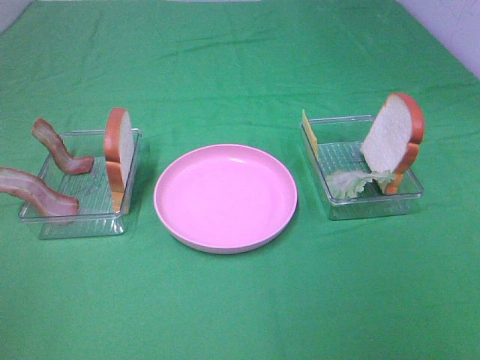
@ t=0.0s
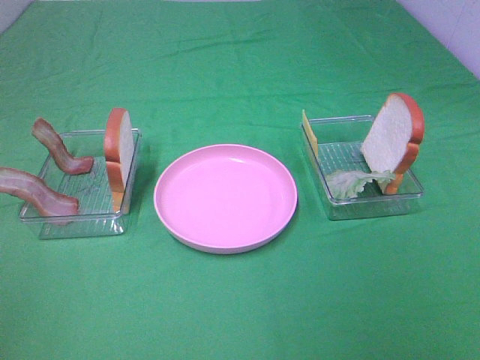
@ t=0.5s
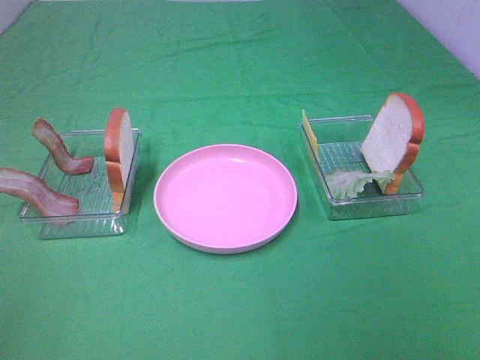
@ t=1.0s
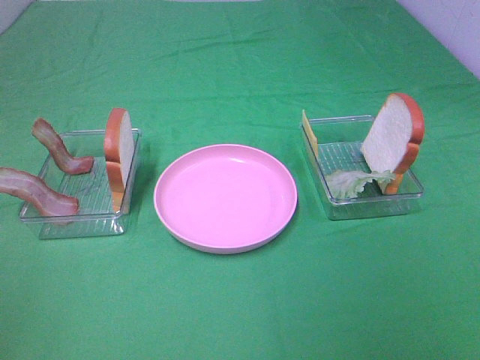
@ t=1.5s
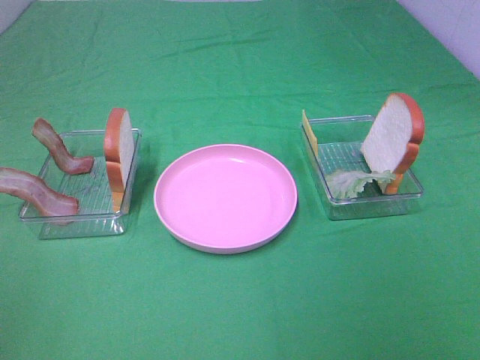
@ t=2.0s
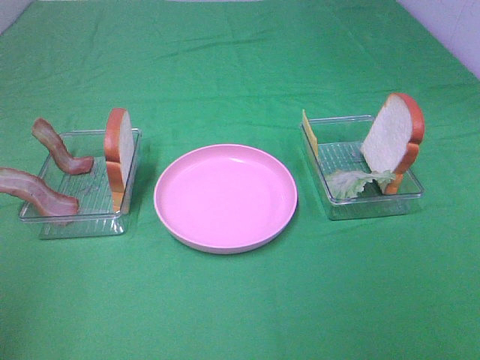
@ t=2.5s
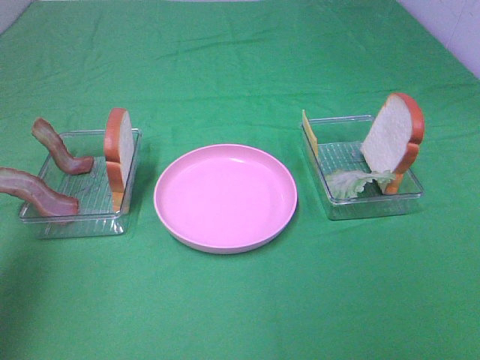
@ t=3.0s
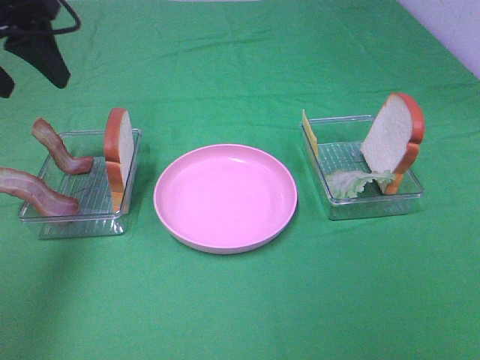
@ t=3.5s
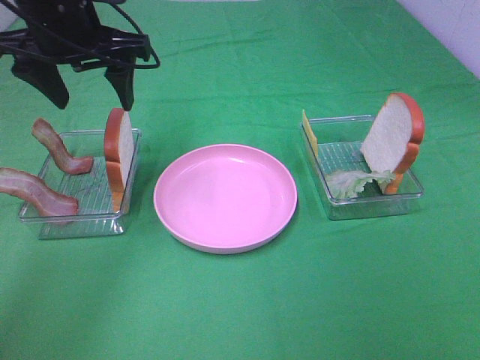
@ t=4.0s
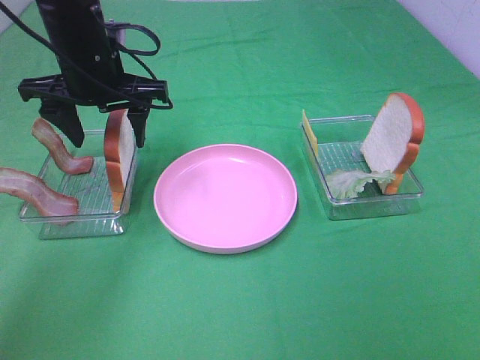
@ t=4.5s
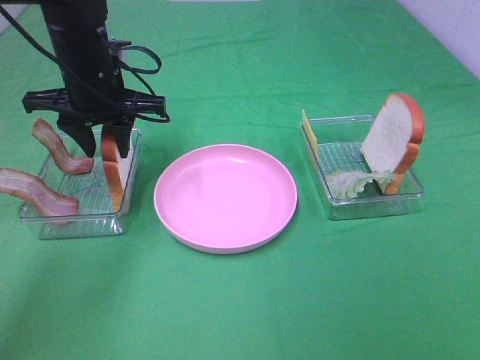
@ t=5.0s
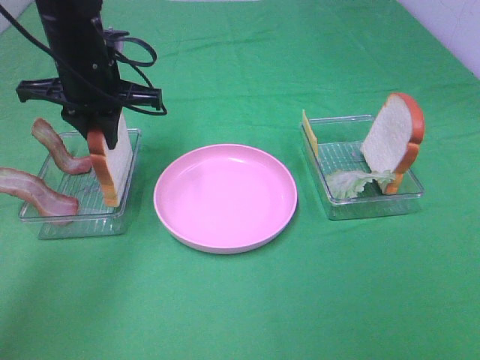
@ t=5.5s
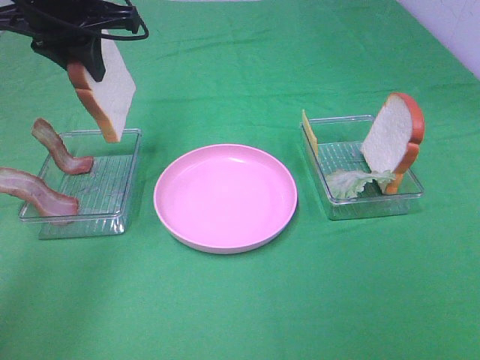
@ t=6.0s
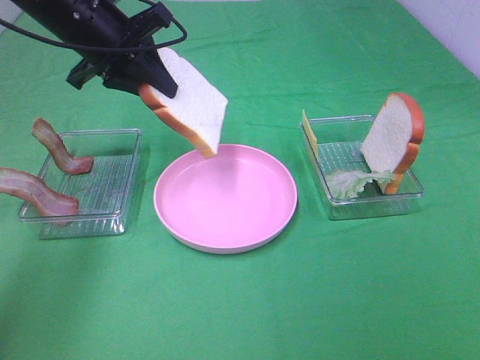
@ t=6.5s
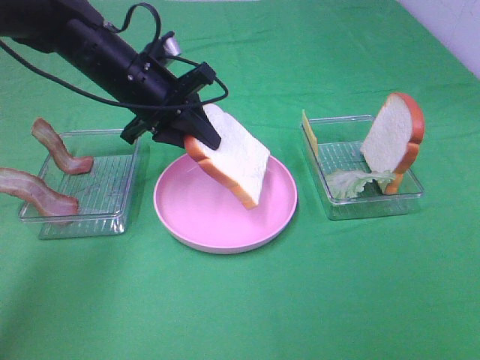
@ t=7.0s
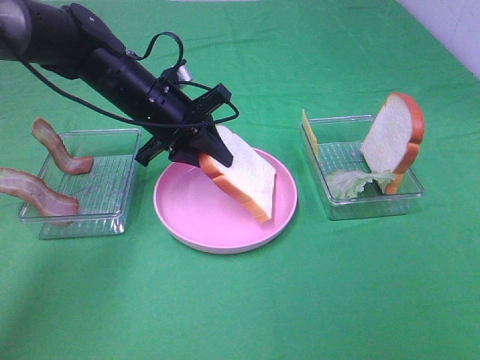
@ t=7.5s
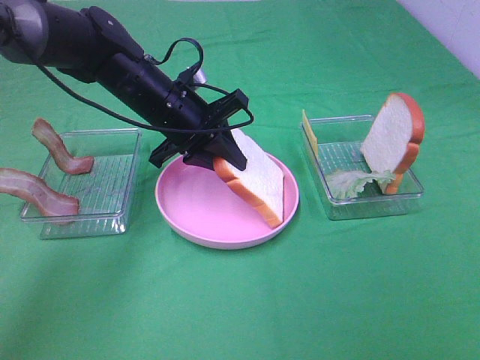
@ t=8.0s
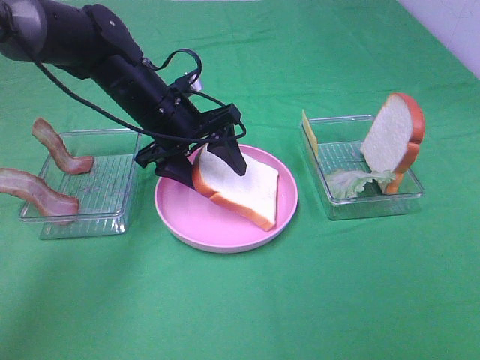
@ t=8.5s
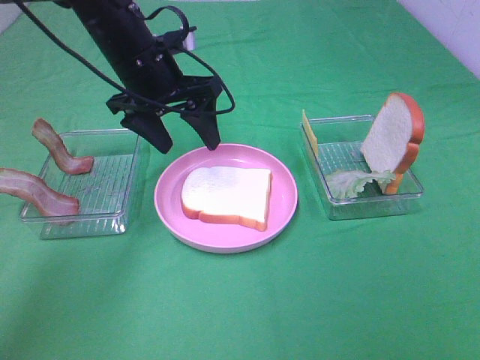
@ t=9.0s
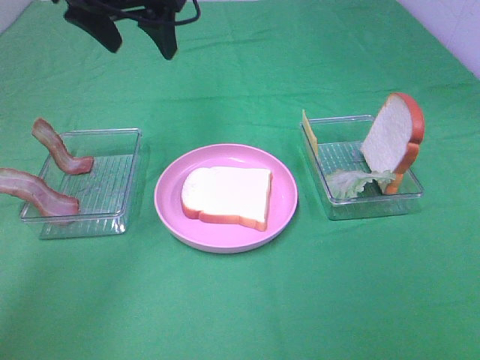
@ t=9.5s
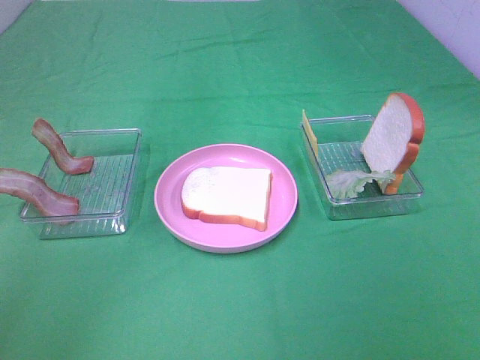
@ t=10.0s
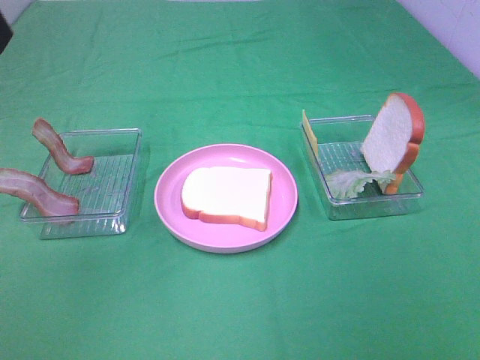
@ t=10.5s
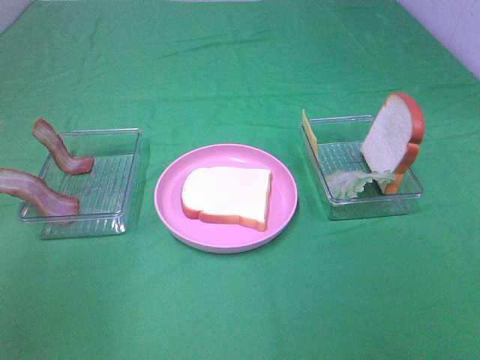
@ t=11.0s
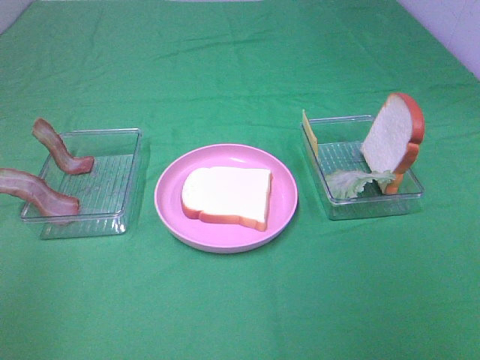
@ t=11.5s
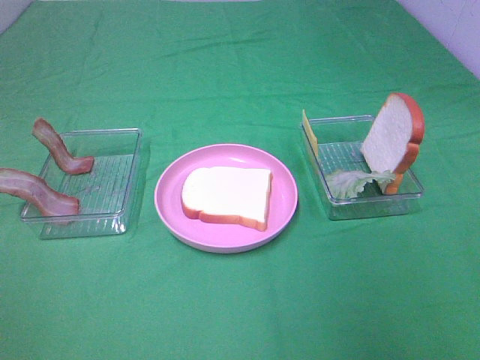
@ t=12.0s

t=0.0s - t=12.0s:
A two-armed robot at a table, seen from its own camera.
Task of the whole recording: Make sandwiches.
Step, t=0.0s - t=5.0s: Left hand:grab the bread slice.
Step, t=5.5s - t=8.5s: Left hand:place the bread slice on the plate.
t=0.0s - t=2.0s: The two grippers keep their place.
t=2.0s - t=4.0s: The left gripper shifts approximately 40 cm forward and to the right.
t=4.0s - t=6.0s: The left gripper moves some 10 cm downward and comes back, and closes up.
t=6.0s - t=8.0s: The left gripper heads downward and to the right, covering approximately 20 cm.
t=8.0s - t=10.0s: The left gripper heads upward, covering roughly 25 cm, and opens up.

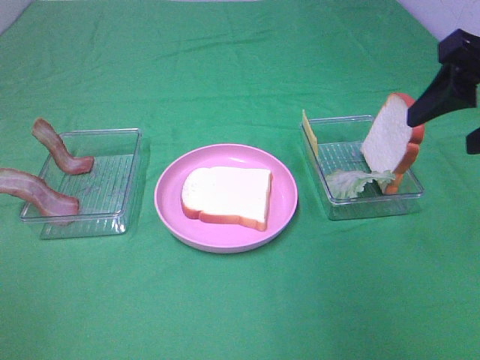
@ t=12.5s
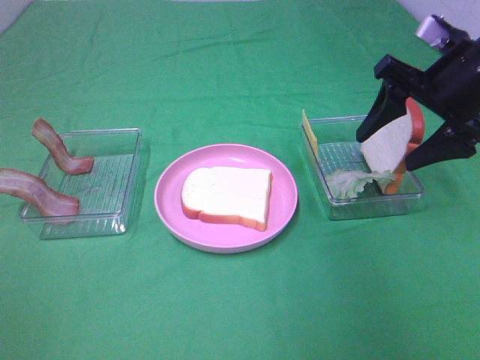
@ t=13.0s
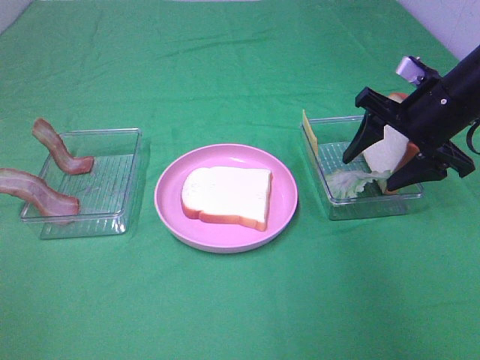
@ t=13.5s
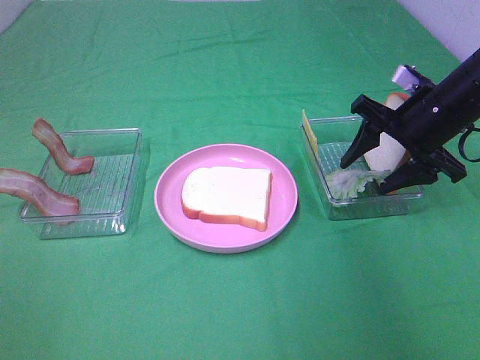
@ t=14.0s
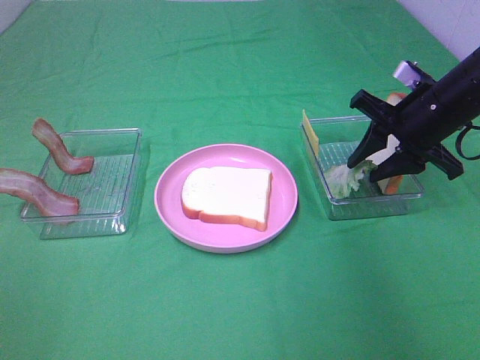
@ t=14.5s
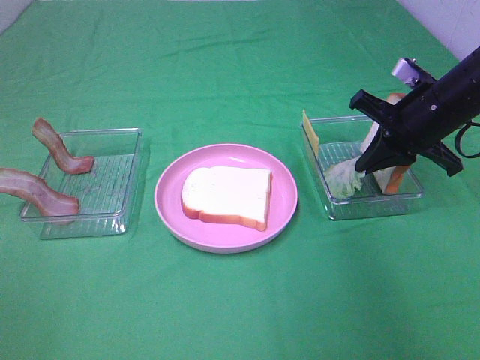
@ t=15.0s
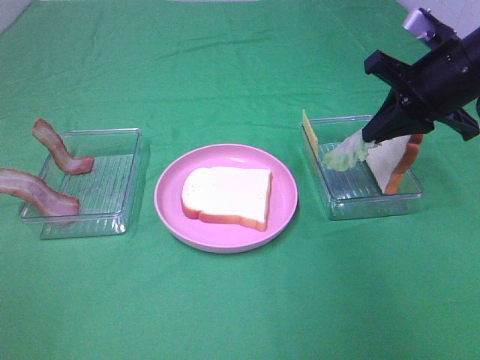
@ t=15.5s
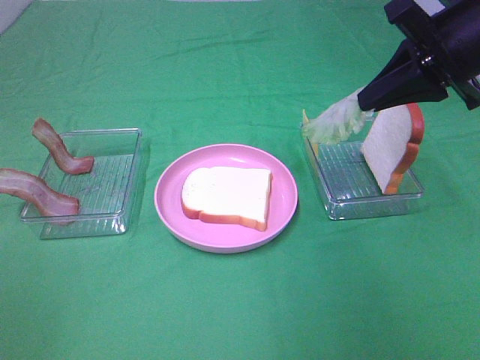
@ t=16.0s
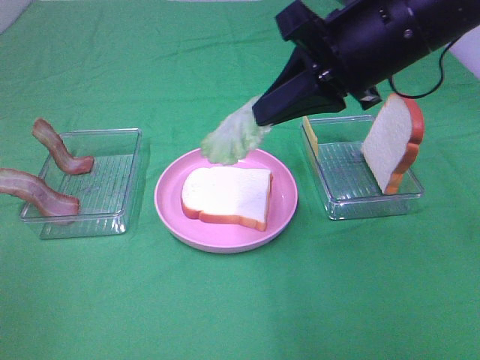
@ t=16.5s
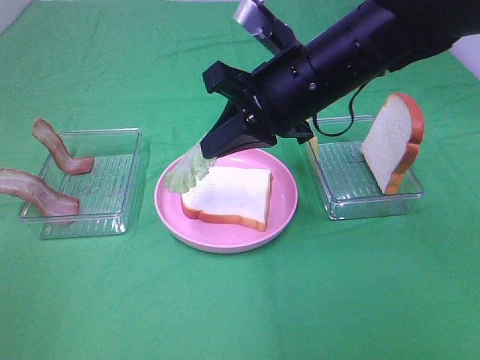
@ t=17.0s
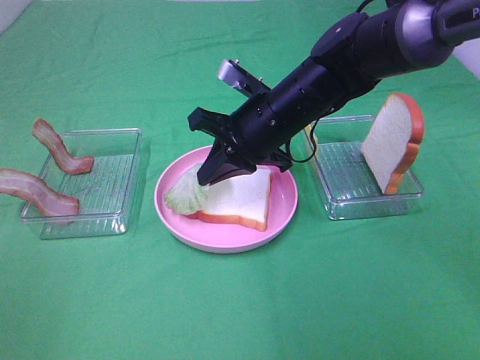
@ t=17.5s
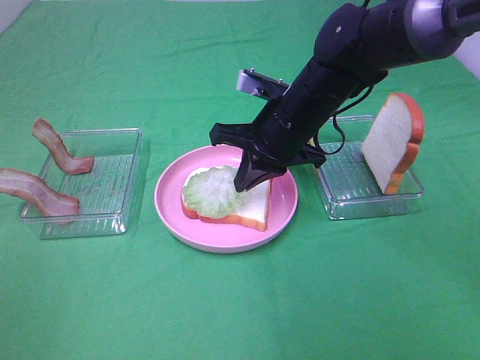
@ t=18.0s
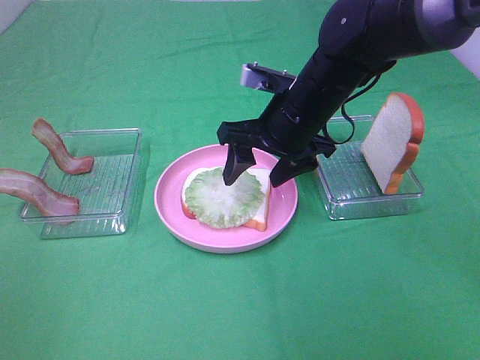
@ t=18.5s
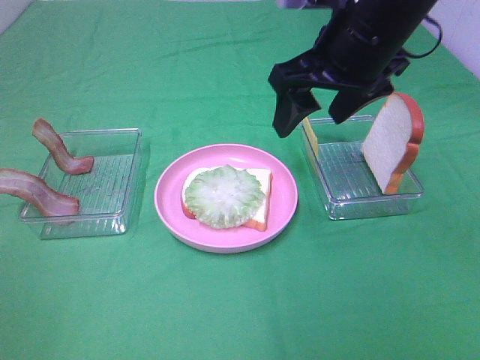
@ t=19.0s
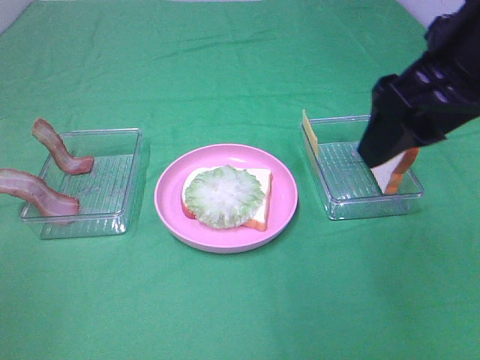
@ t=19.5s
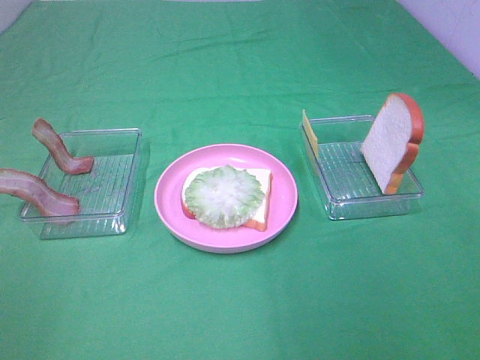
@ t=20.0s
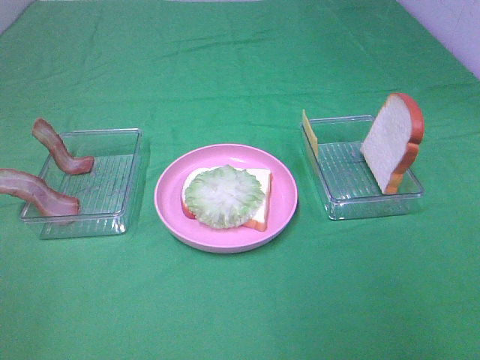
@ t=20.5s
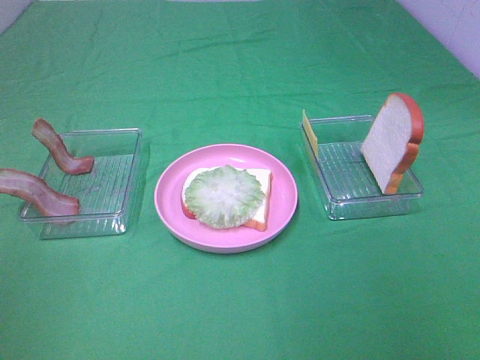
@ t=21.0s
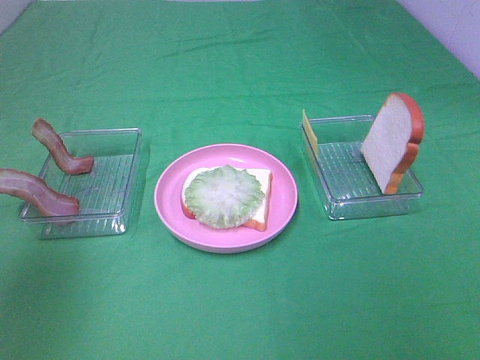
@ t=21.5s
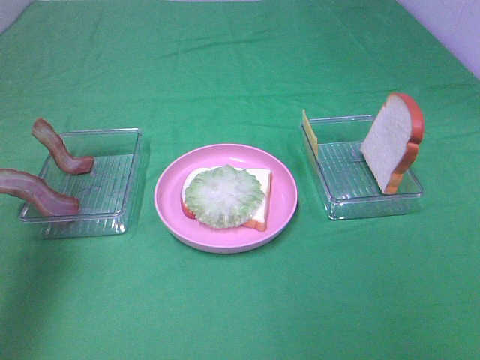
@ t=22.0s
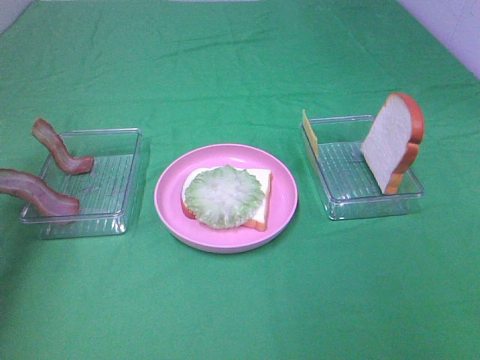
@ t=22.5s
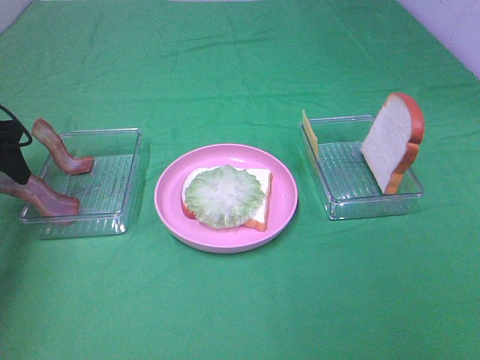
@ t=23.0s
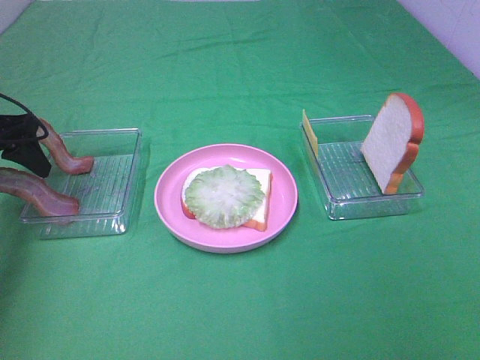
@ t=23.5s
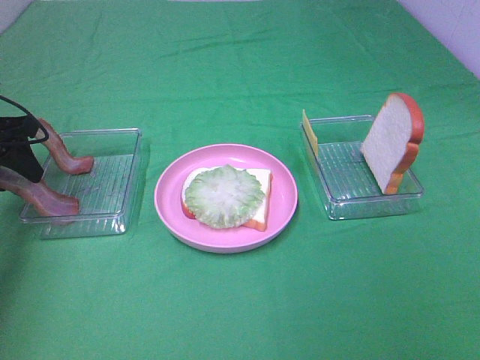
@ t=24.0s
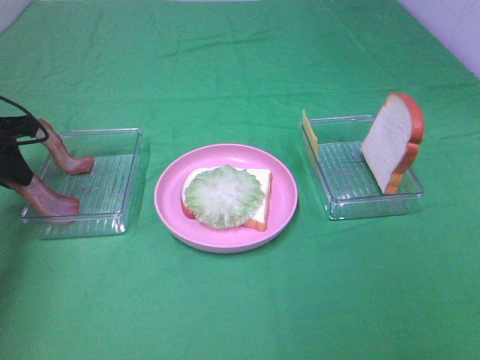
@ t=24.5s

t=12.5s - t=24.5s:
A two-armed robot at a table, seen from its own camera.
Task of the whole recording: Make sandwiches.
Step, t=12.5s - t=15.0s: Right hand:grab the lettuce slice.
Step, t=15.5s - t=18.5s: Right hand:place the lettuce slice on the bread slice.
t=12.5s - t=14.5s: The right gripper is displaced downward and forward by approximately 15 cm, and closes.
t=14.5s - t=16.5s: The right gripper moves upward, to the left and backward, about 20 cm, and closes its fingers.
t=16.5s - t=18.5s: The right gripper shifts roughly 15 cm downward and forward, and opens its fingers.
t=18.5s - t=20.5s: The right gripper shifts some 35 cm backward and to the right.
t=20.5s - t=22.5s: The left gripper moves forward, roughly 30 cm.
t=22.5s - t=24.5s: The left gripper is displaced downward and forward by some 10 cm, and closes its fingers.

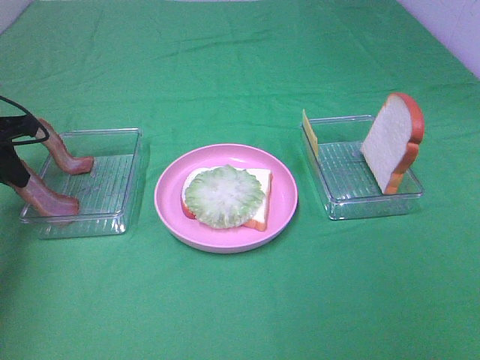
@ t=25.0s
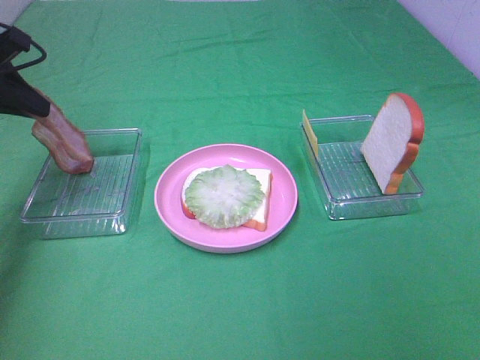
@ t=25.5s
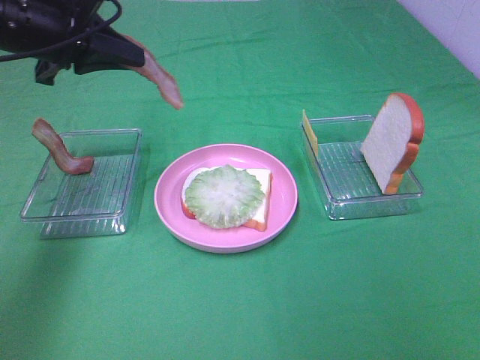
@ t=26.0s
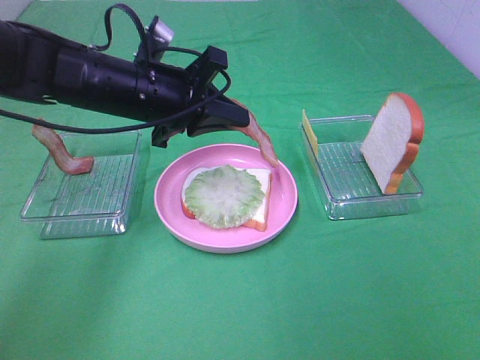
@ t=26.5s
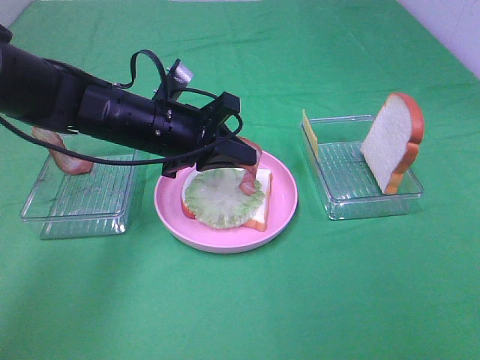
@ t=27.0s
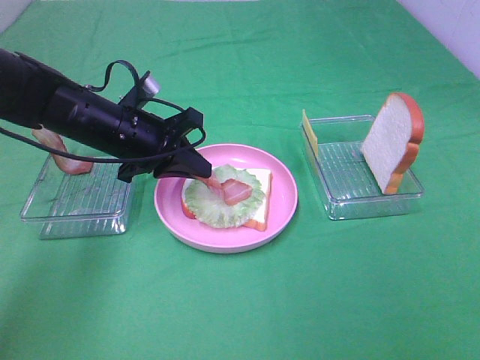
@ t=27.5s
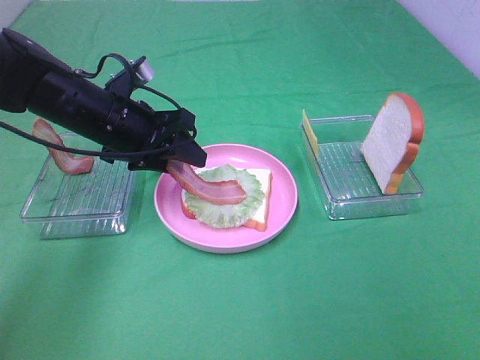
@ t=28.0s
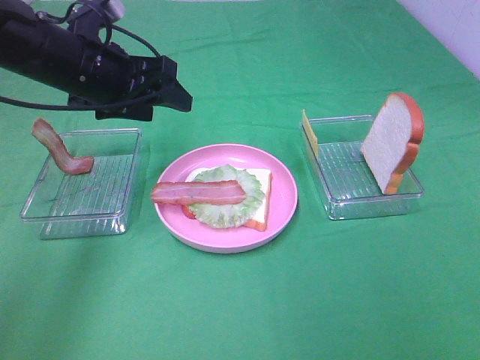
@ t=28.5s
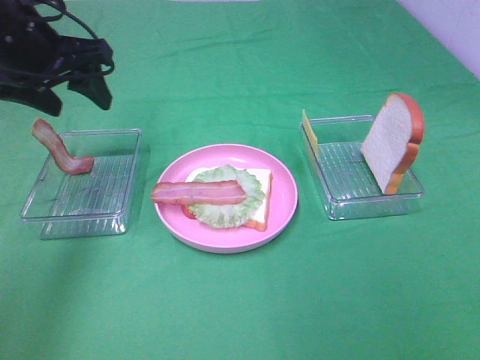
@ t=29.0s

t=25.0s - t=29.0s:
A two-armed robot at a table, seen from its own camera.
Task of the whole recording: Make sandwiches.
Step, t=25.0s - t=28.5s: Left hand:place bacon on lettuce slice.
t=25.0s - t=27.0s: The left gripper moves to the right, about 25 cm.
t=27.0s - t=29.0s: The left gripper heads to the left and upward, covering about 15 cm, and opens up.
